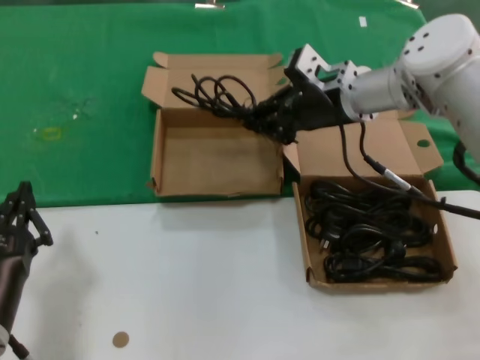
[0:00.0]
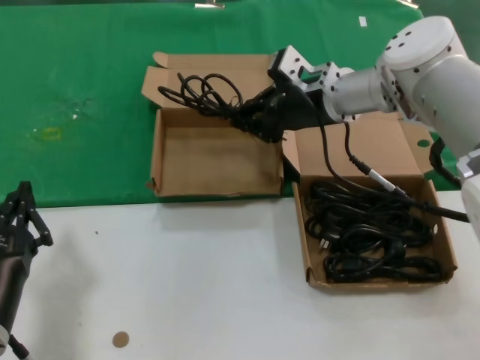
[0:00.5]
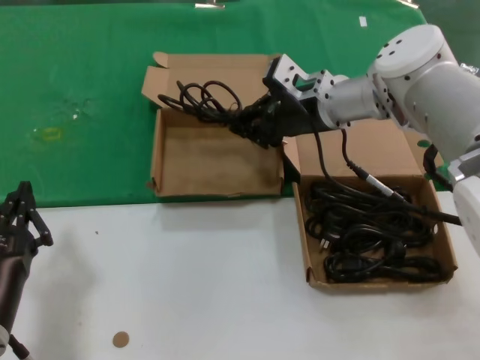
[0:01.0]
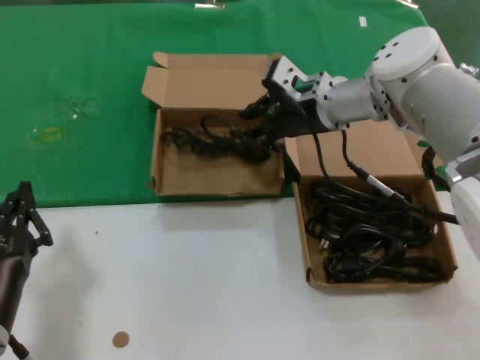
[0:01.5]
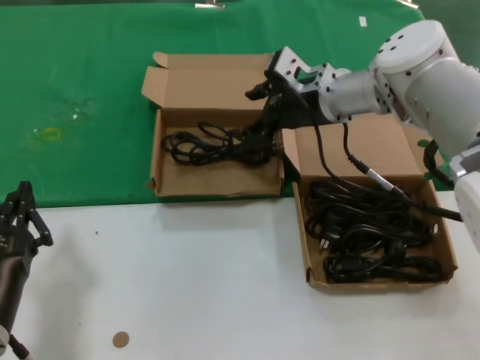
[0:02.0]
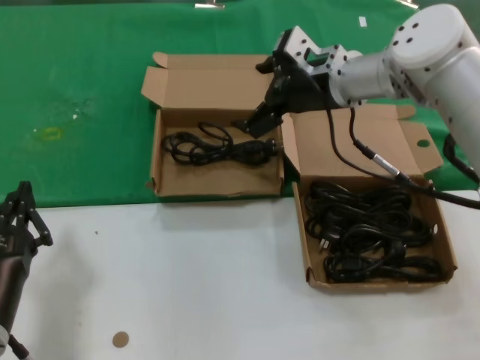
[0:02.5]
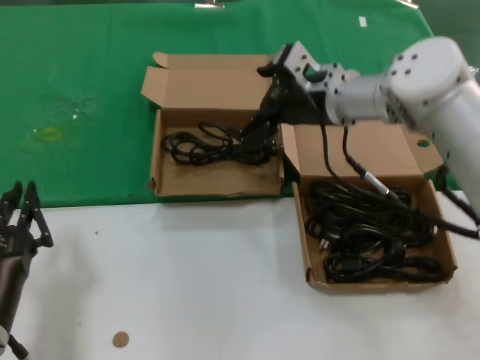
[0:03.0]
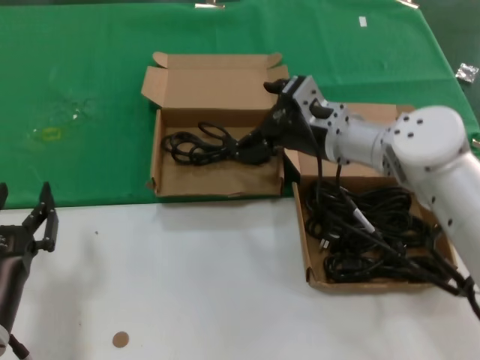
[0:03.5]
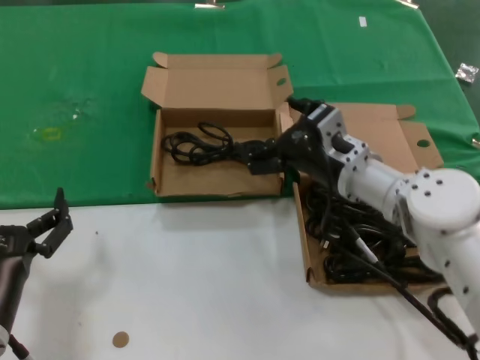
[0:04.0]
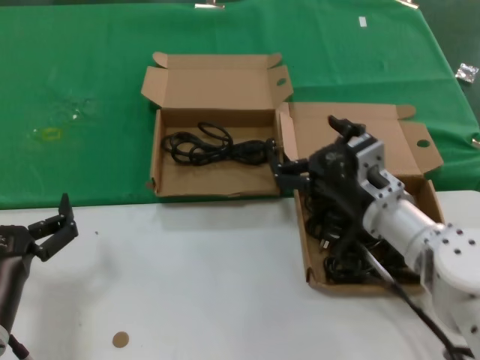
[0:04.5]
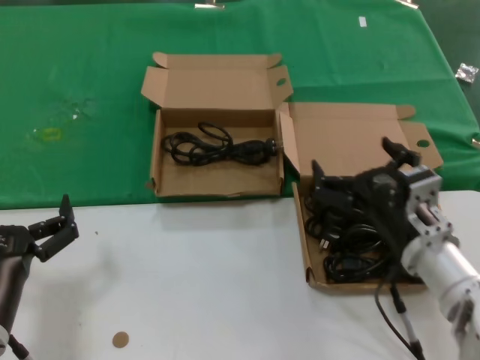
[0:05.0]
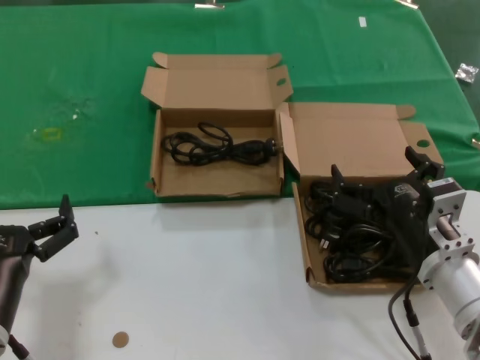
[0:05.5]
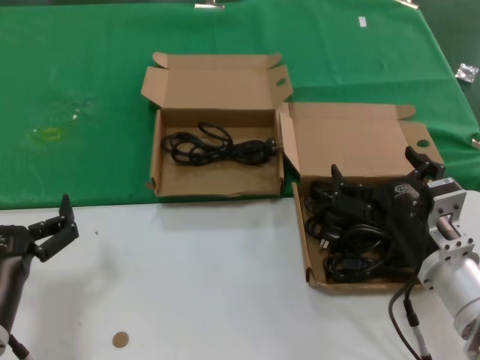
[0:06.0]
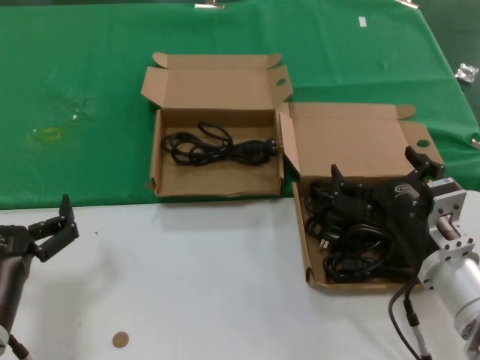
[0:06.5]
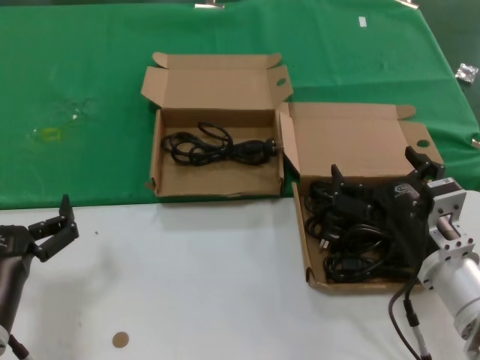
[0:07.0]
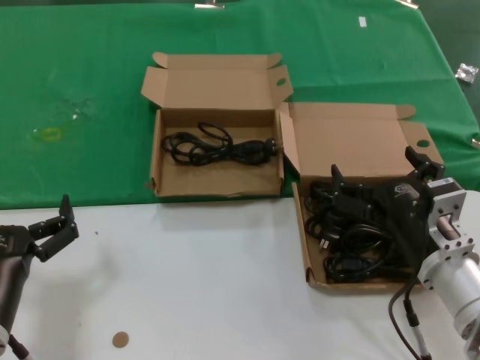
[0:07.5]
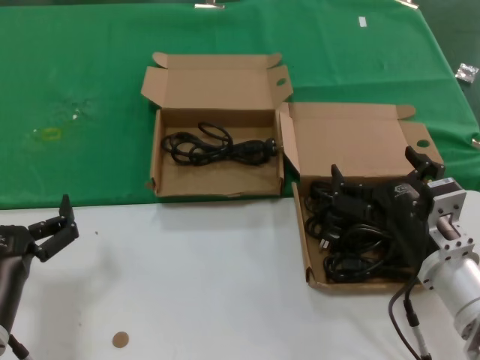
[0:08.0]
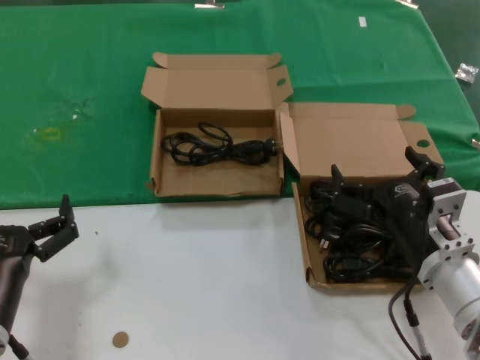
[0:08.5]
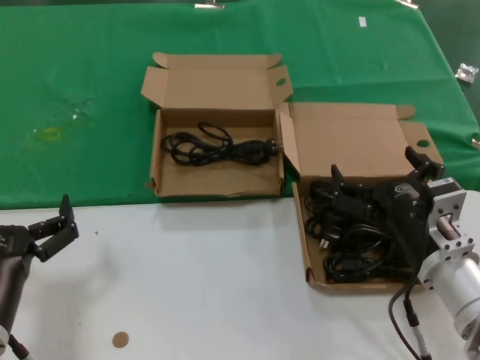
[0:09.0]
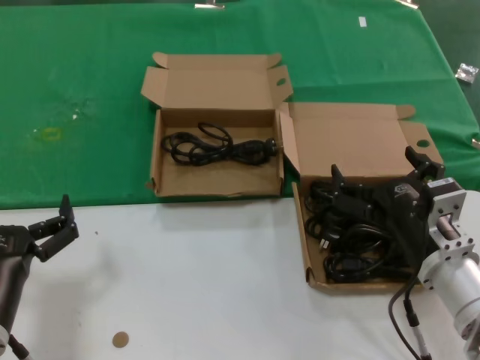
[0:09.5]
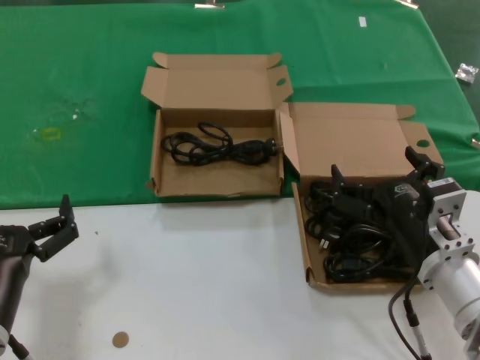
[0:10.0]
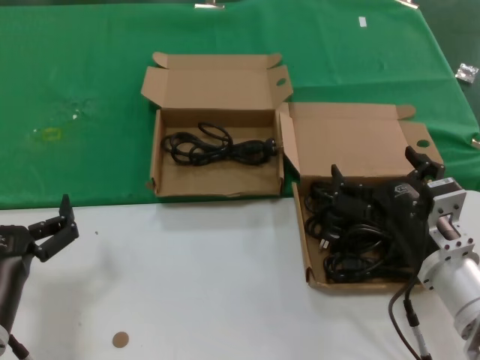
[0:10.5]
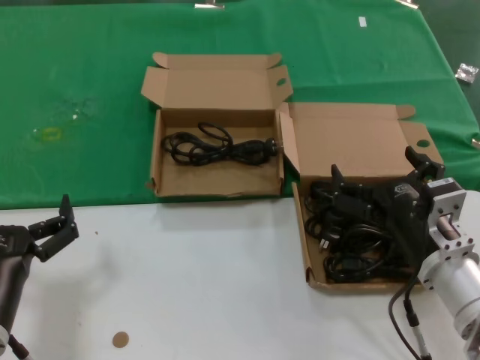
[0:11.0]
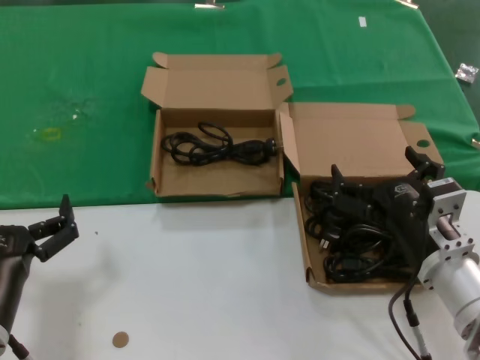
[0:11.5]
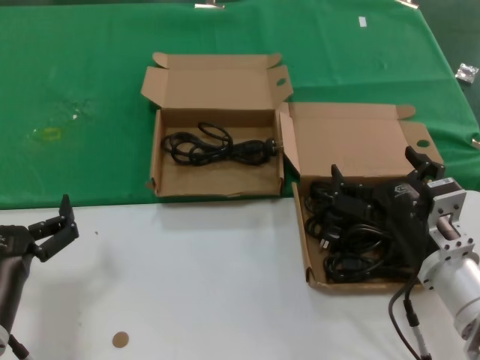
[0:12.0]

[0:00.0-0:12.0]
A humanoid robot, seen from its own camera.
Task of the whole recording: take the parts from the box containing them and put them into an empty box.
0:00.0 to 0:02.0: There are only small adjustments of the hands.
0:02.0 to 0:04.0: The right hand heads downward and backward, covering some 15 cm.
0:04.0 to 0:06.0: The right hand travels backward by some 15 cm.
0:06.0 to 0:12.0: The two hands keep their place.

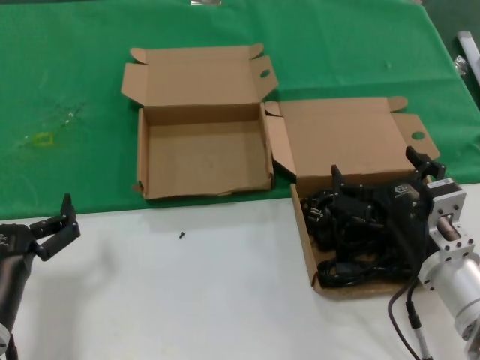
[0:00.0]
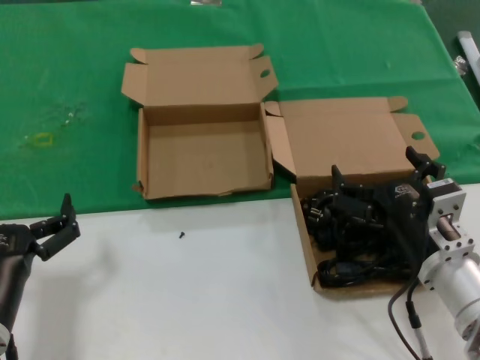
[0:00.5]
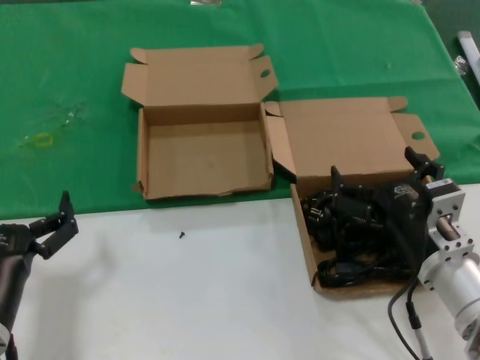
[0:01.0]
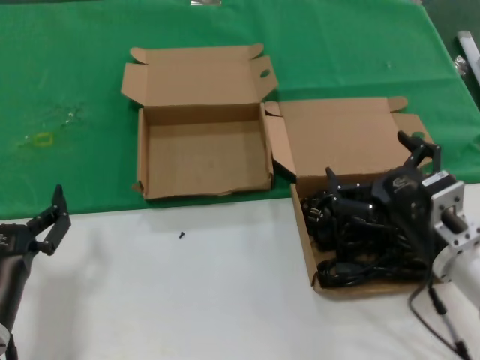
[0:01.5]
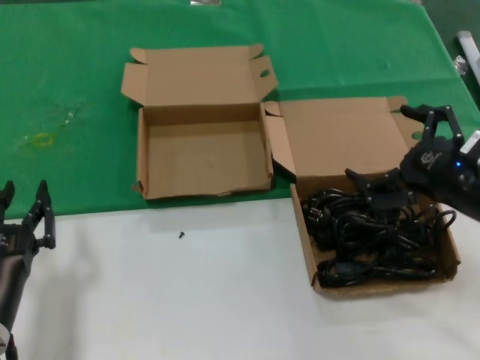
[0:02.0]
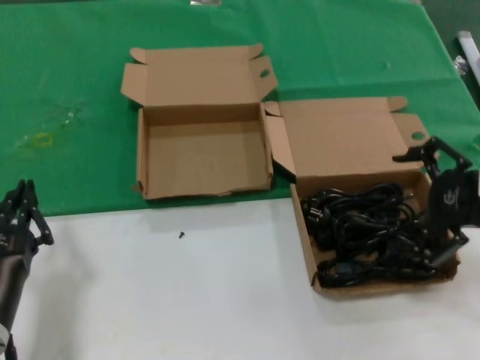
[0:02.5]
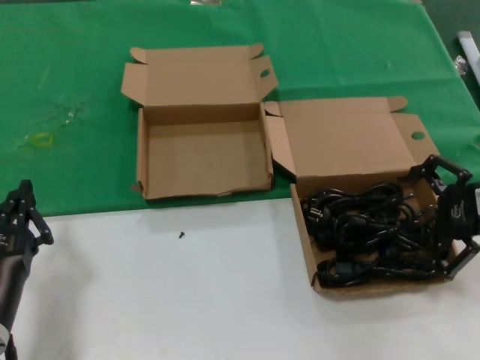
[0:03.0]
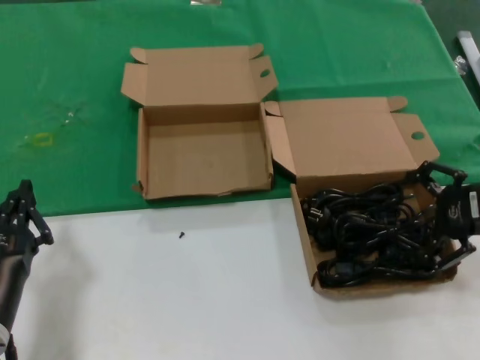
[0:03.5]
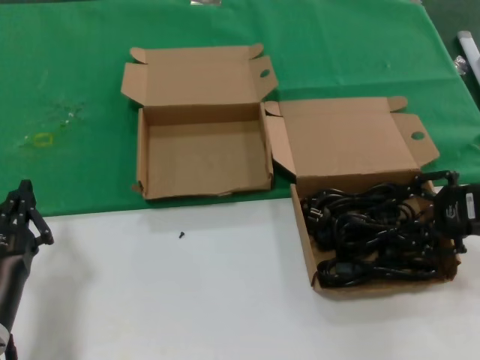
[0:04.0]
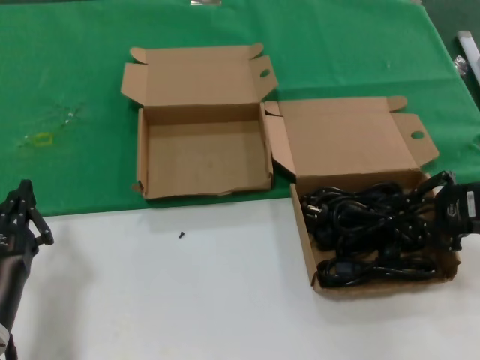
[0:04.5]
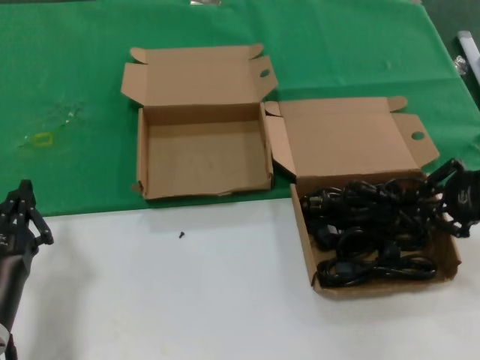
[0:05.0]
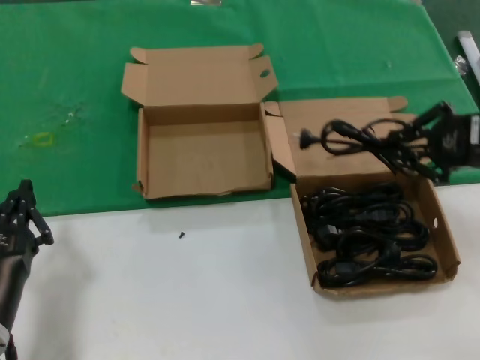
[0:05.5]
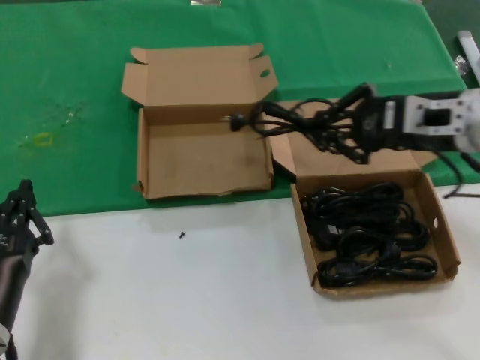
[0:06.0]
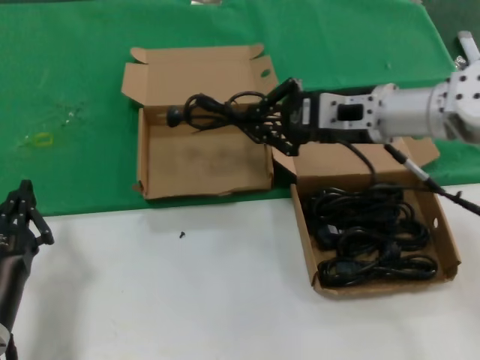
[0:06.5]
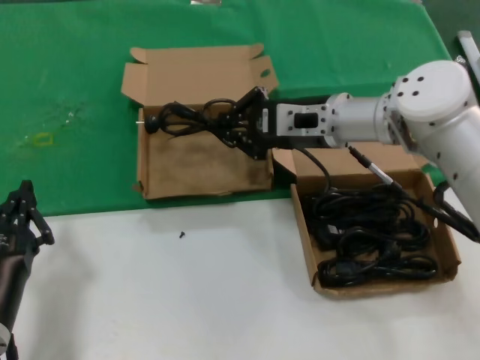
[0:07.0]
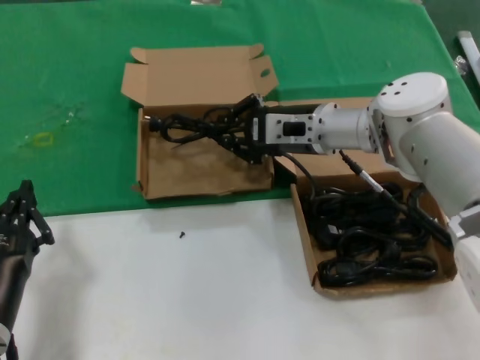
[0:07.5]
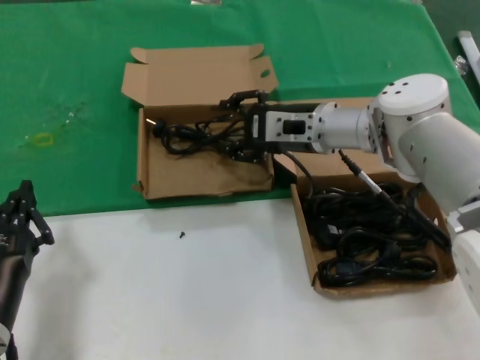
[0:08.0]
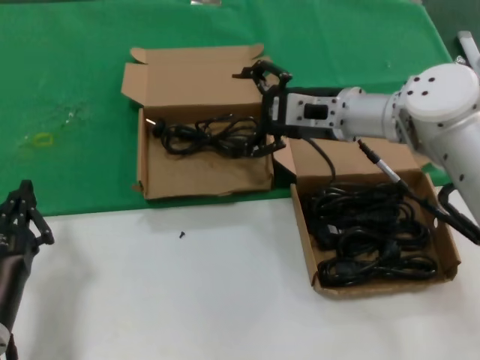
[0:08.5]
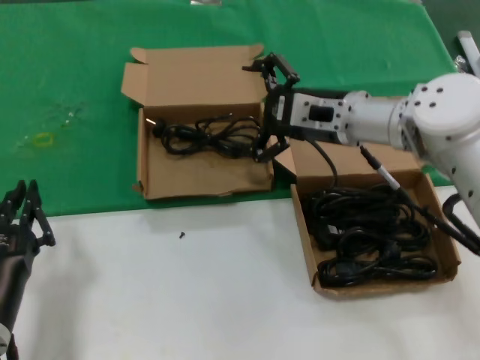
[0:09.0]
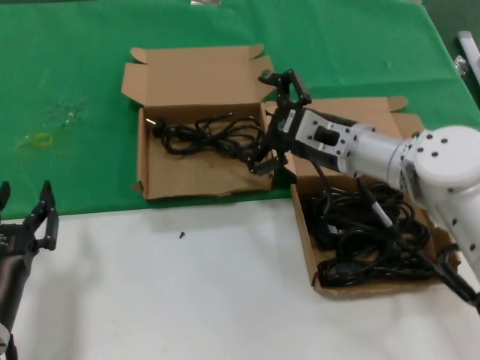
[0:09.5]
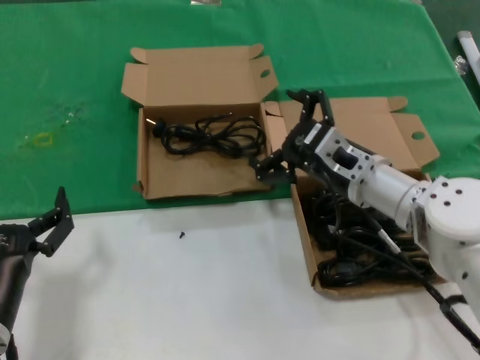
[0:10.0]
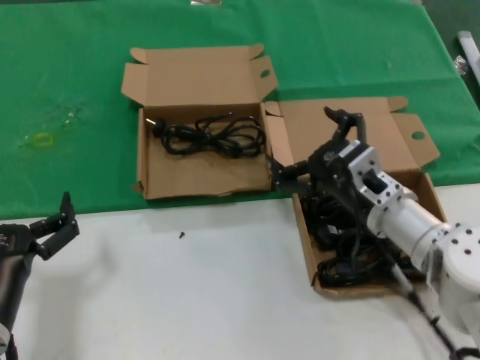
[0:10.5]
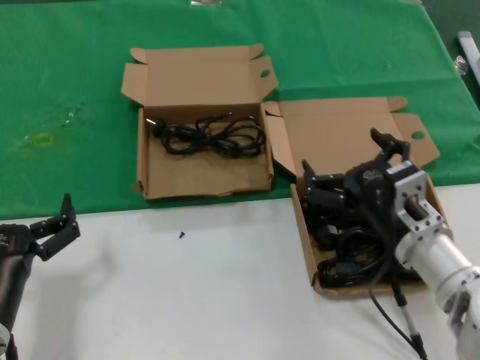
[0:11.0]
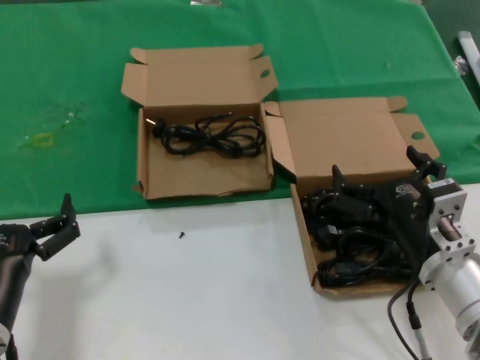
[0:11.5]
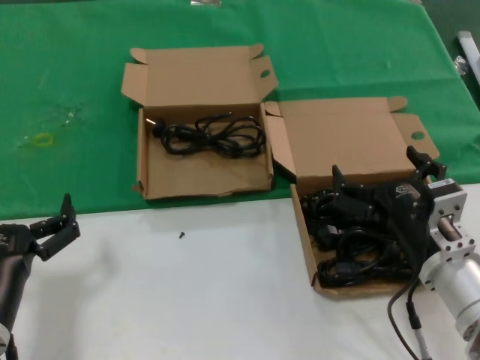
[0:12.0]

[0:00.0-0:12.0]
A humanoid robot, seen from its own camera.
Task of the whole recording: take the parts from the box containing them and put them into an empty box.
Step, 0:00.0 to 0:04.5: Grasp the data cable.
Step, 0:05.0 to 0:08.0: Place the data cable in the another box.
0:00.0 to 0:02.0: The right hand moves upward and to the right, approximately 15 cm.
0:02.0 to 0:04.0: The right hand heads to the right, covering approximately 5 cm.
0:04.0 to 0:06.0: The right hand travels to the left, upward and forward by roughly 10 cm.
0:06.0 to 0:08.0: The right hand shifts some 20 cm to the left, forward and downward.
0:08.0 to 0:10.0: The right hand shifts roughly 10 cm backward and downward.
0:10.0 to 0:12.0: The right hand travels backward by roughly 15 cm.

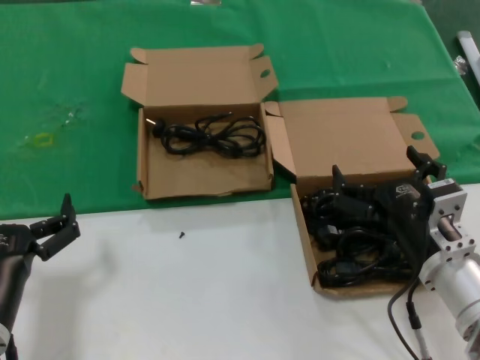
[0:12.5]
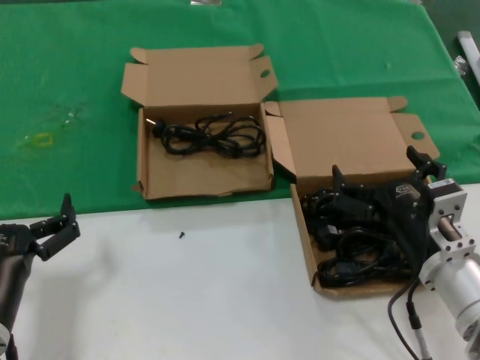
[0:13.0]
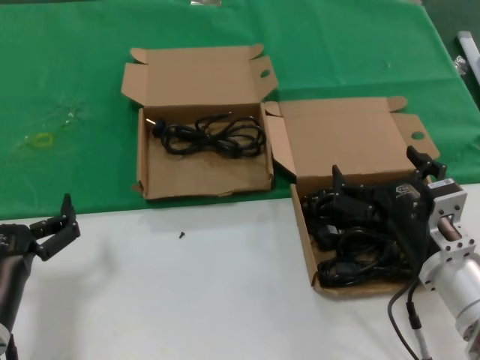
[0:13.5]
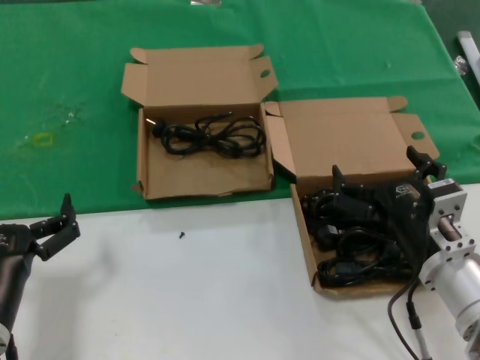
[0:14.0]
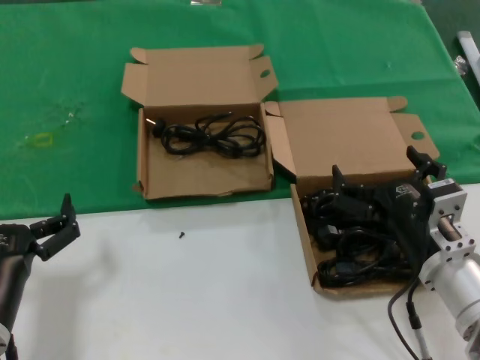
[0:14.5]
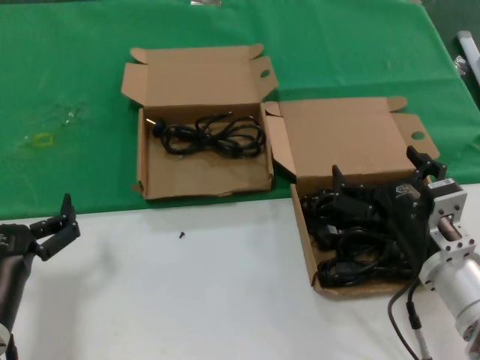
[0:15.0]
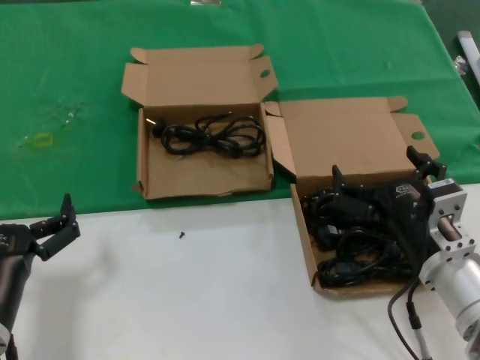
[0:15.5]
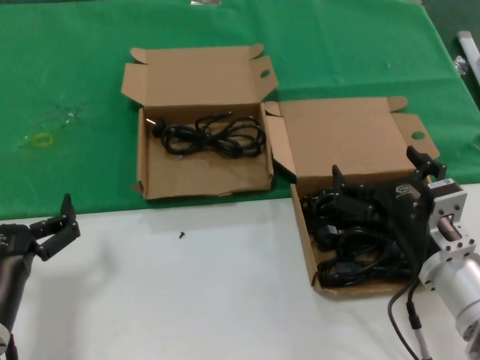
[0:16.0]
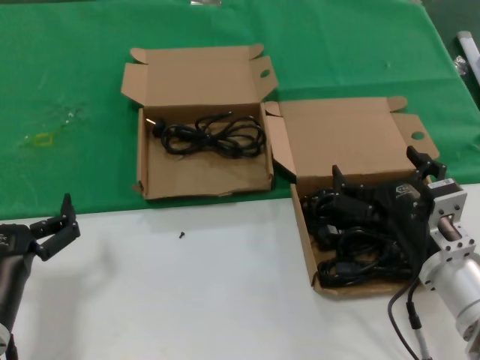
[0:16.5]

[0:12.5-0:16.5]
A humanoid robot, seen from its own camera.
Task of the whole recording: take the parts from the box containing them and put them into an empty box.
0:12.5 to 0:16.5: Both hands stay about where they are.
